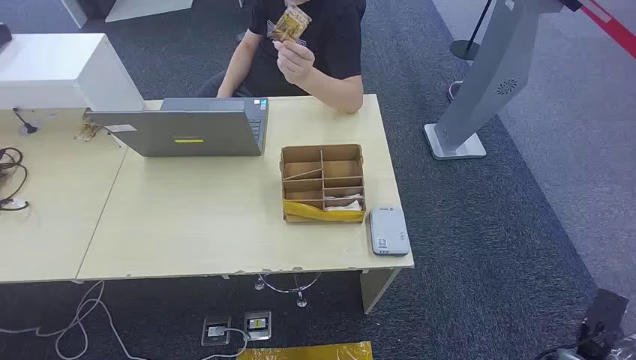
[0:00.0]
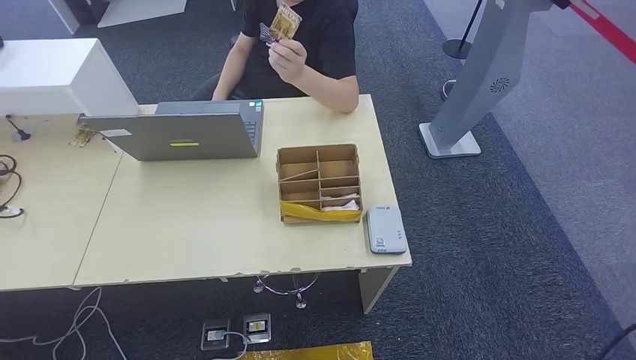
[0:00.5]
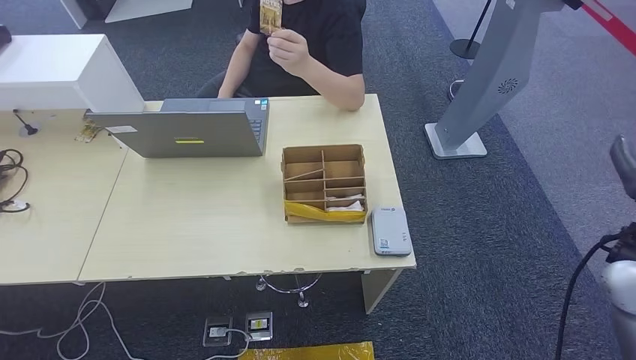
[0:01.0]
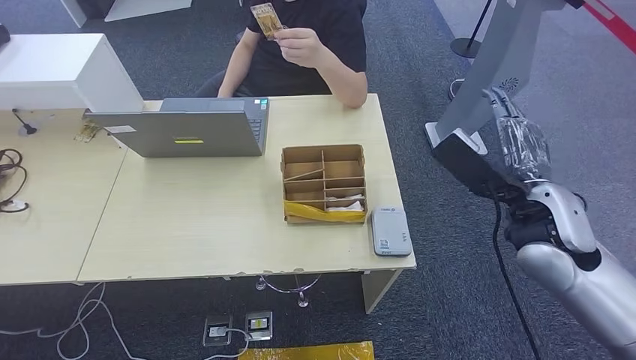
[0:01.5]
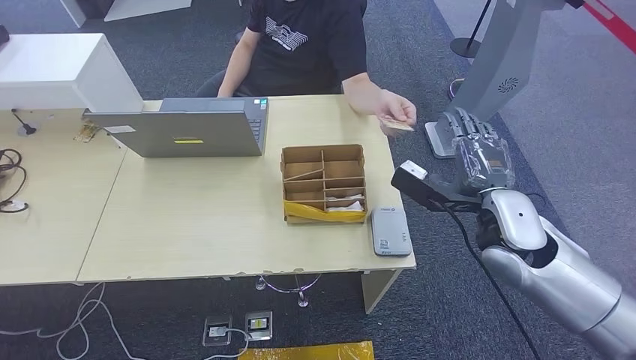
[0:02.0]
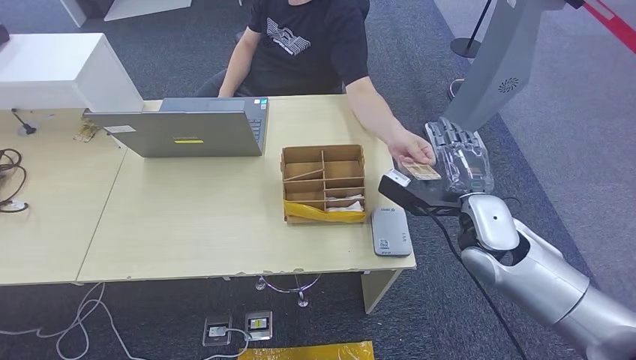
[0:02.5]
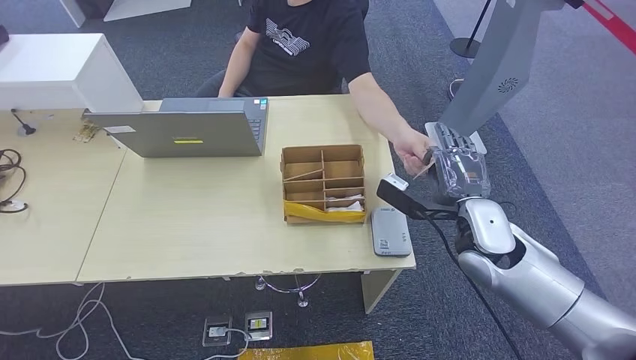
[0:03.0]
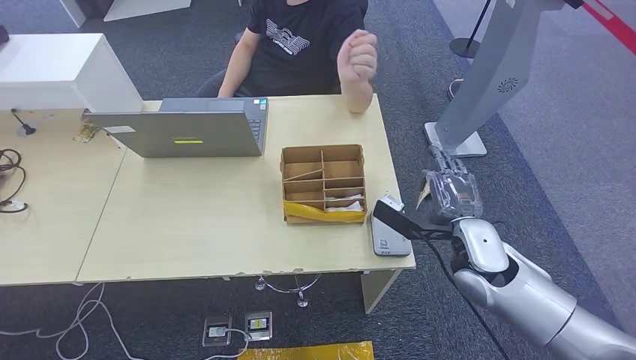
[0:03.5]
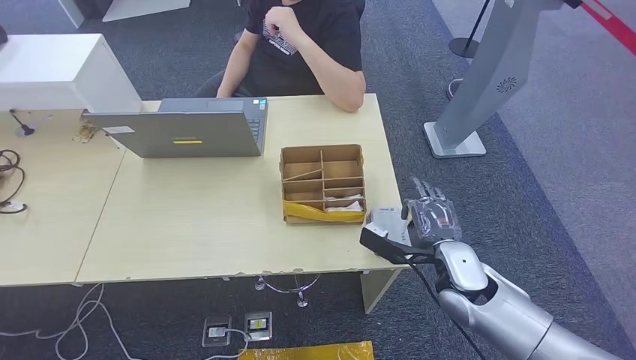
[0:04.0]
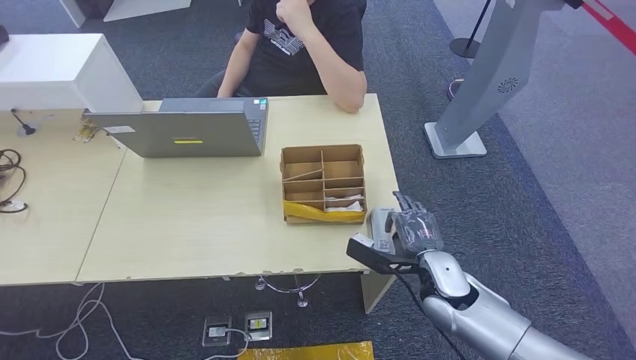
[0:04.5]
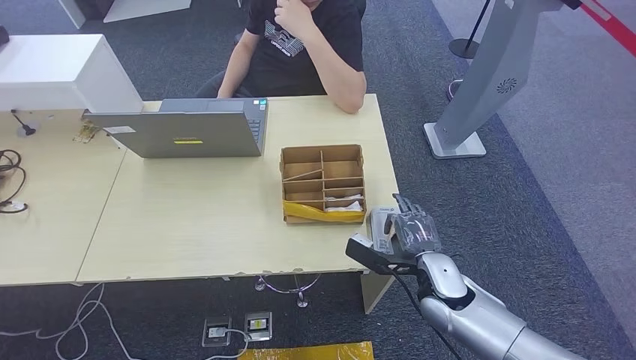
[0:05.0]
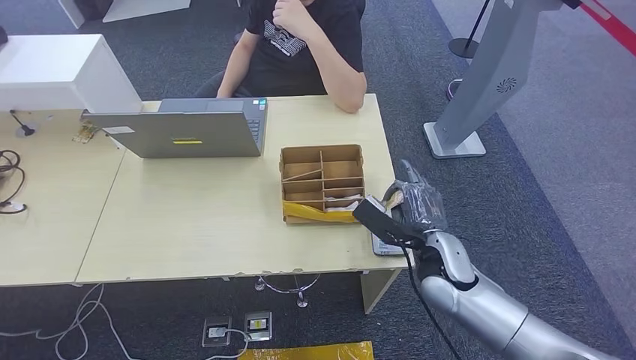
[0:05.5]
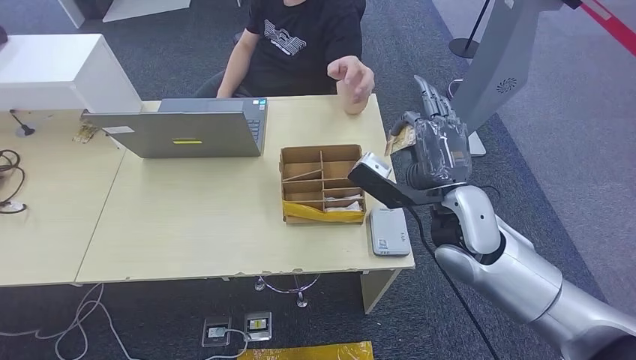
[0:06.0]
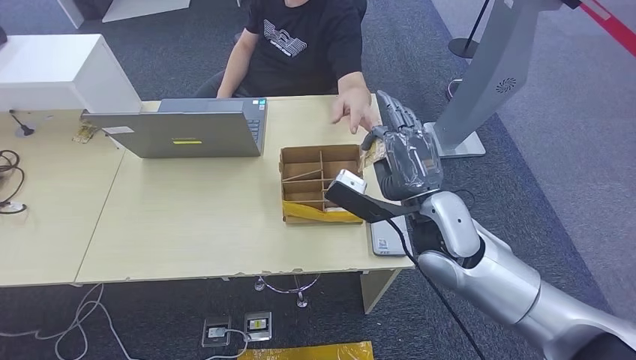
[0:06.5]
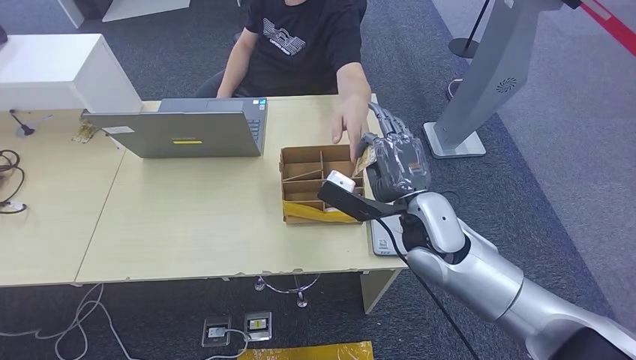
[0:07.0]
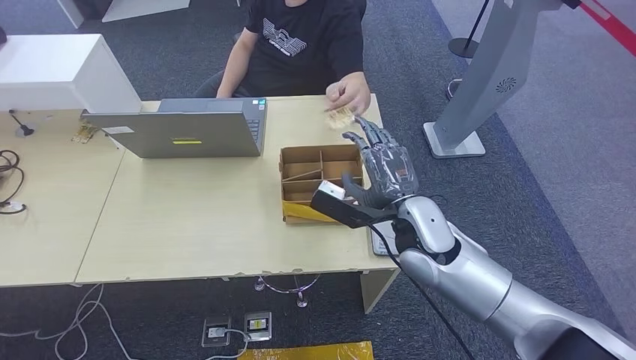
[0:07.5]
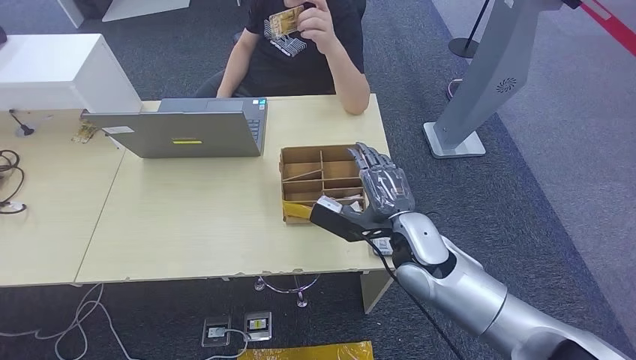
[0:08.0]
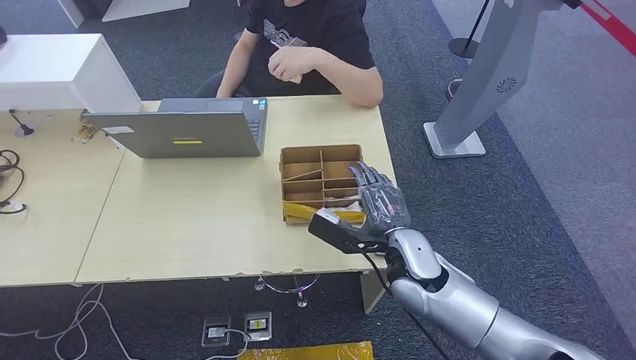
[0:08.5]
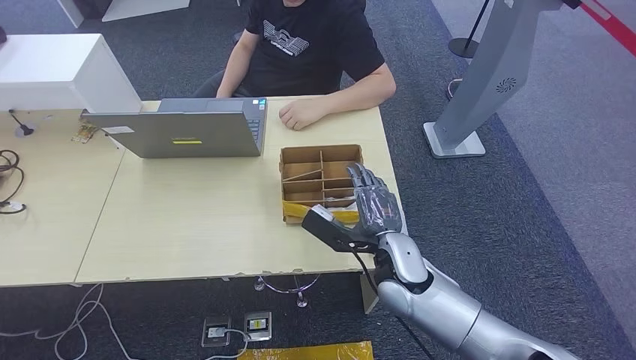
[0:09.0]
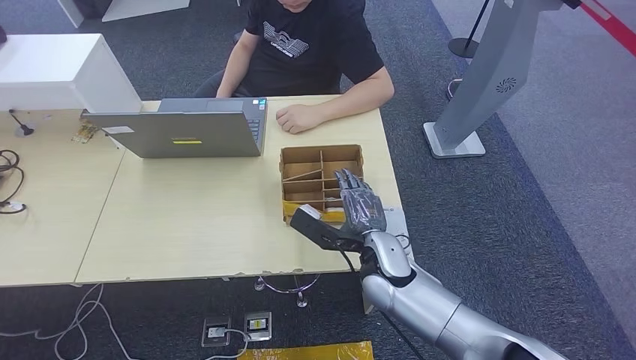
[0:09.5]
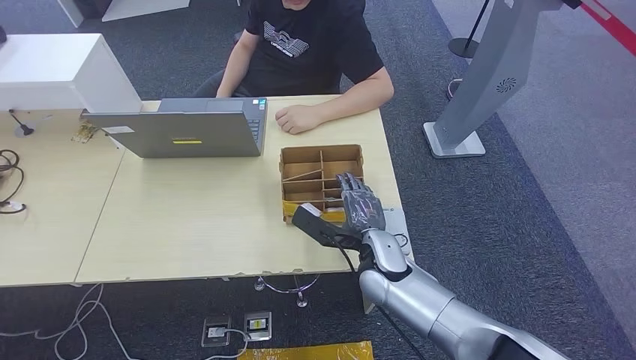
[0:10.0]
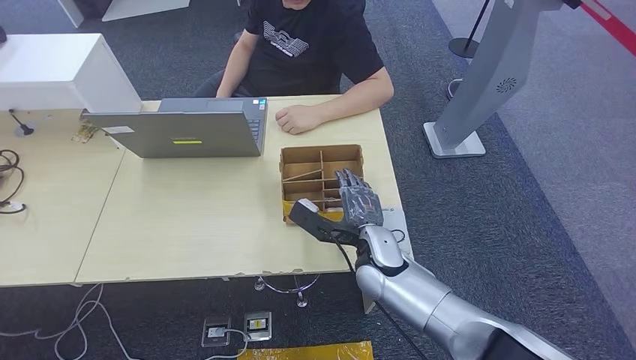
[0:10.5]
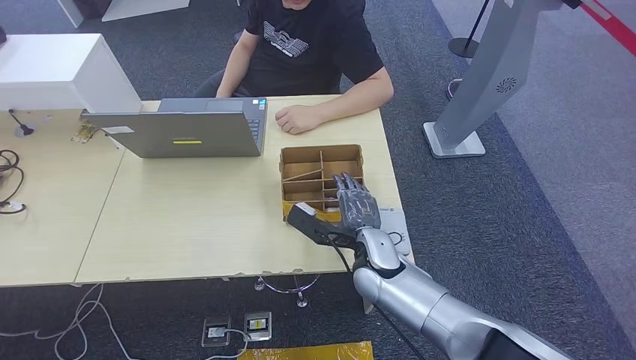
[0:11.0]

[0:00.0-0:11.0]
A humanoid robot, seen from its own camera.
Step, 0:00.0 to 0:03.5: Take the ID card from the person's hand.
Step, 0:04.5 to 0:05.5: Place the ID card on the card reader.
Step, 0:06.5 to 0:07.5: Hand the ID card to the person.
0:02.0 to 0:03.5: The right hand goes approximately 10 cm downward.
0:05.5 to 0:07.5: The right hand moves upward and to the left, about 10 cm.
0:07.5 to 0:09.0: The right hand shifts approximately 5 cm downward.
0:09.0 to 0:11.0: The hands make only small movements.

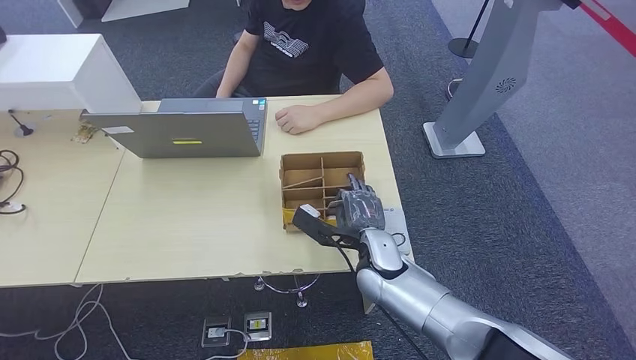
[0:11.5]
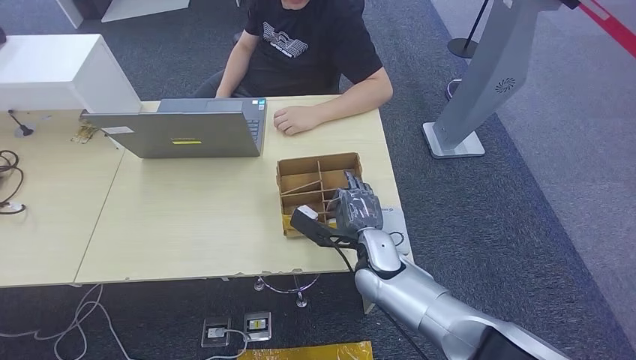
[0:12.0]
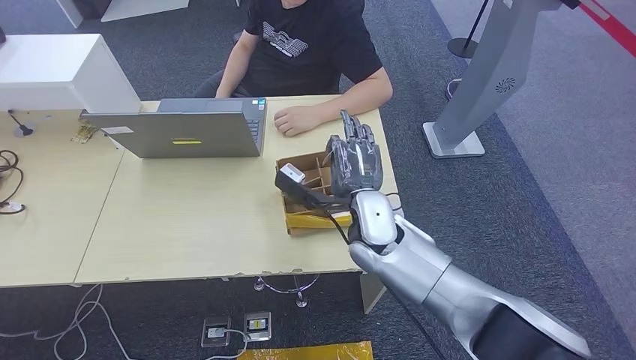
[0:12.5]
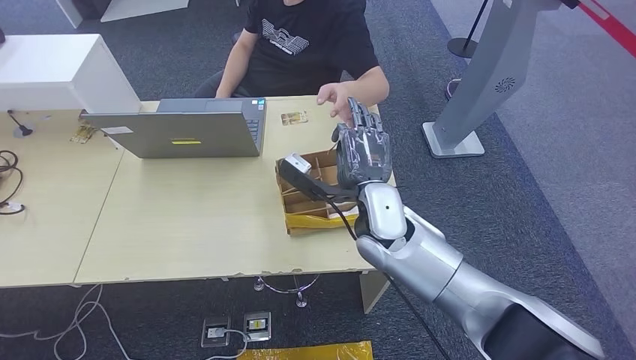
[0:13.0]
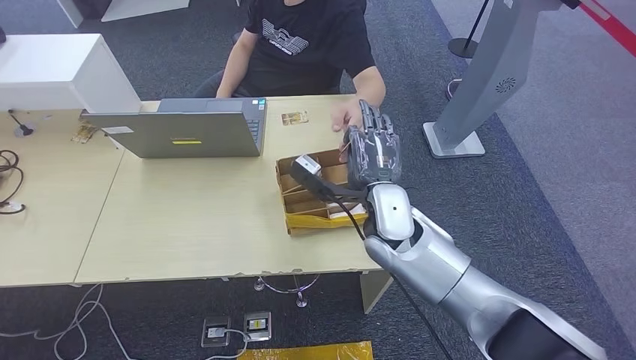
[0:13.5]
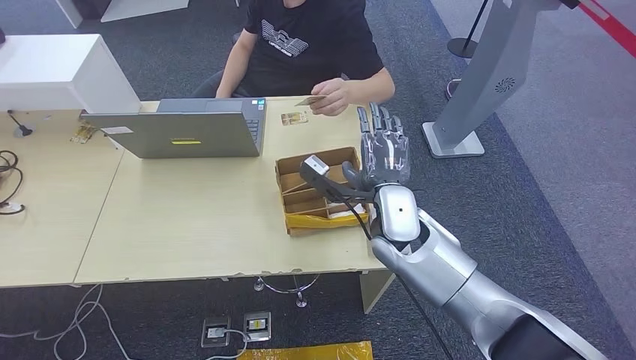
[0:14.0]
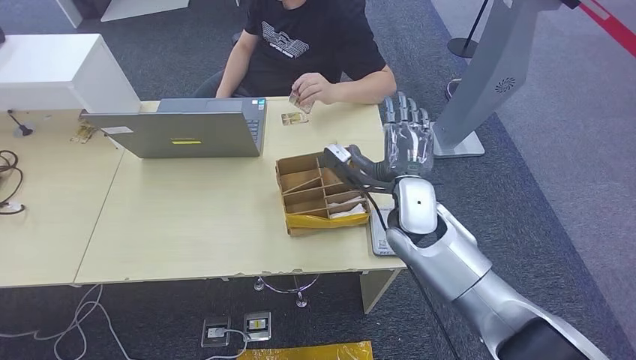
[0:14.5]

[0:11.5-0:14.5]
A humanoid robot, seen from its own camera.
Step, 0:13.5 to 0:14.5: Hand the room key to the person.
0:11.5 to 0:13.0: The right hand moves upward, approximately 10 cm.
0:13.0 to 0:14.5: The right hand moves to the right, about 5 cm.
